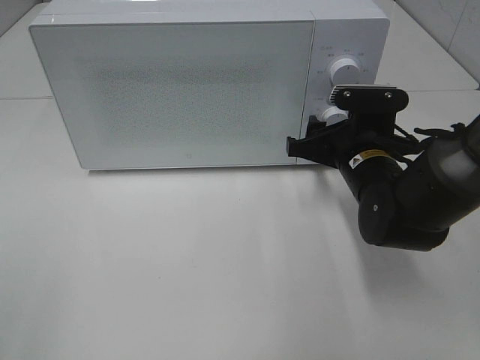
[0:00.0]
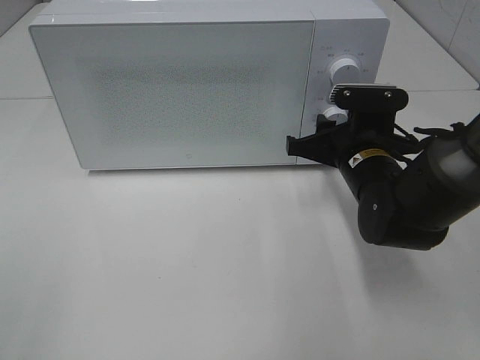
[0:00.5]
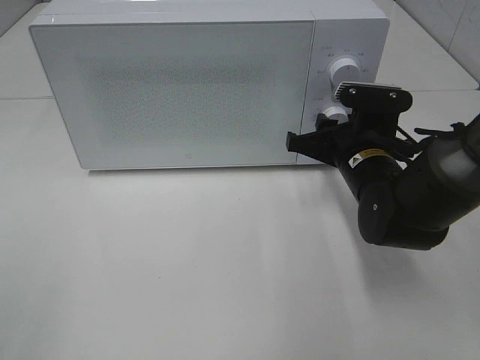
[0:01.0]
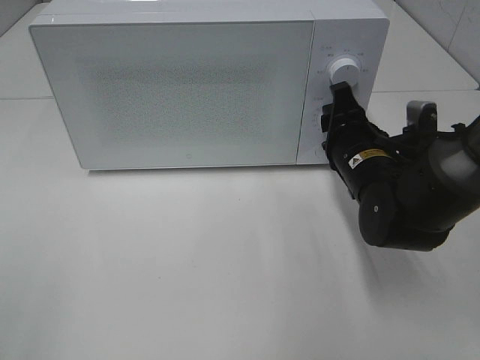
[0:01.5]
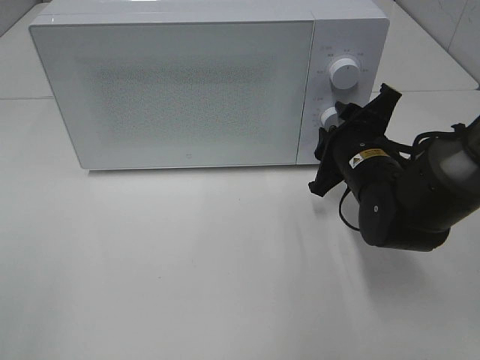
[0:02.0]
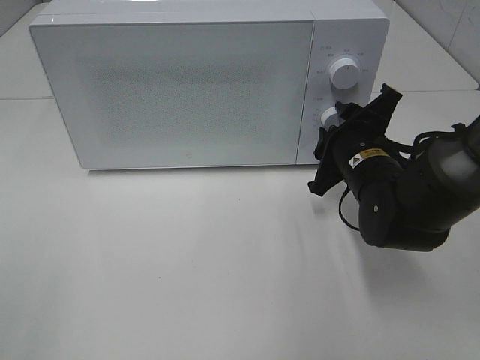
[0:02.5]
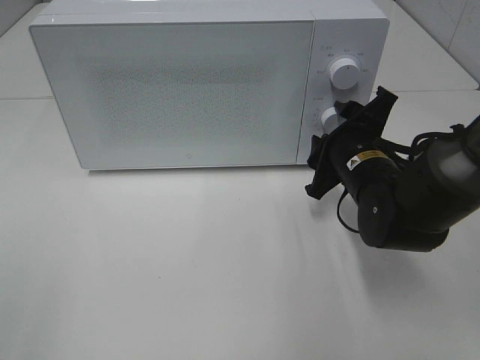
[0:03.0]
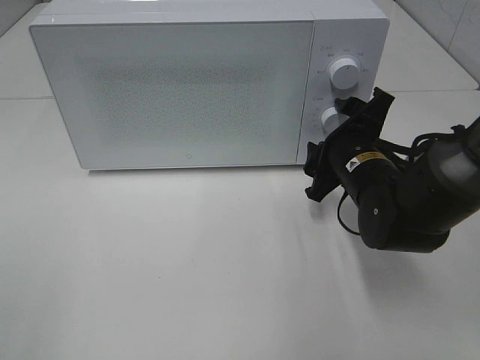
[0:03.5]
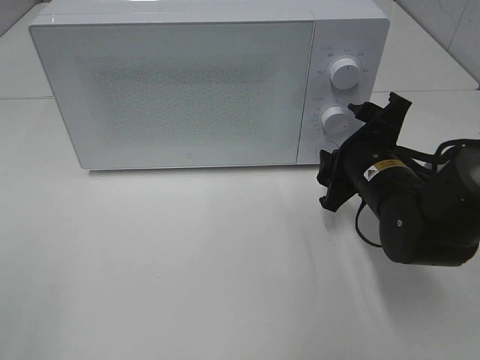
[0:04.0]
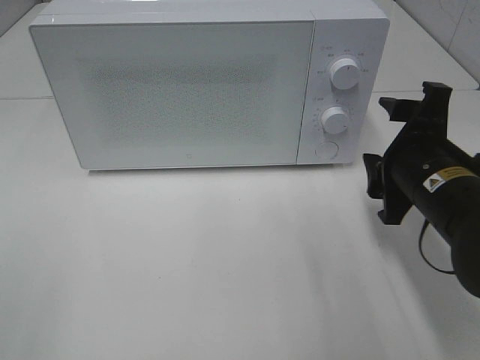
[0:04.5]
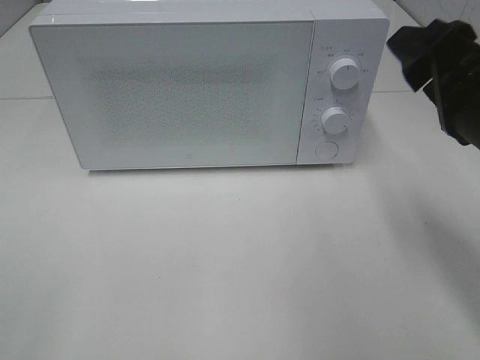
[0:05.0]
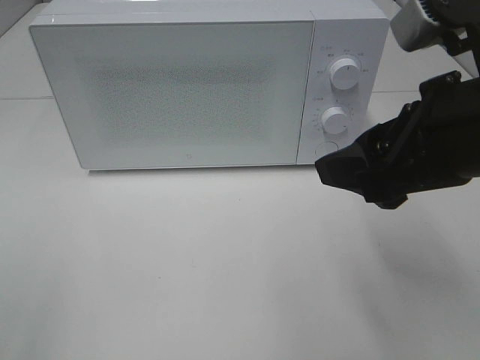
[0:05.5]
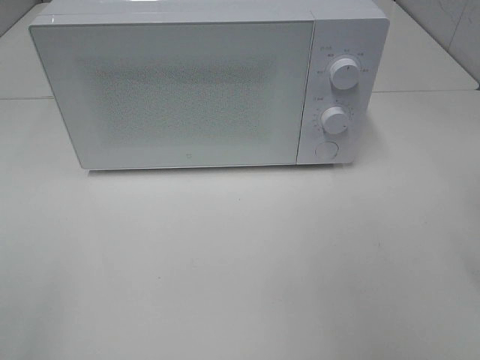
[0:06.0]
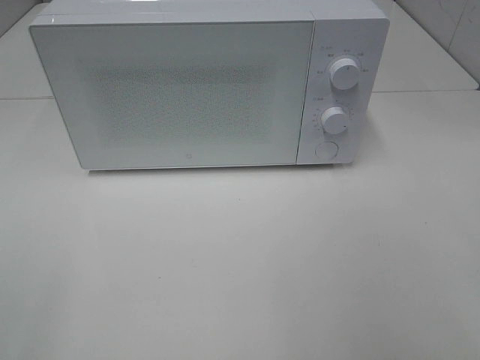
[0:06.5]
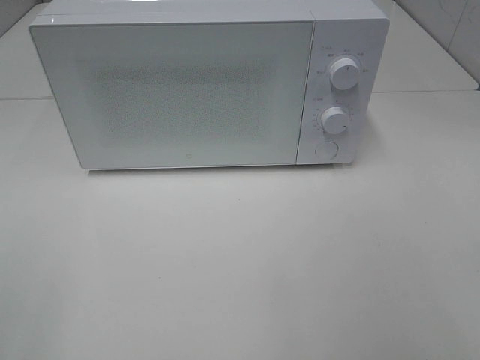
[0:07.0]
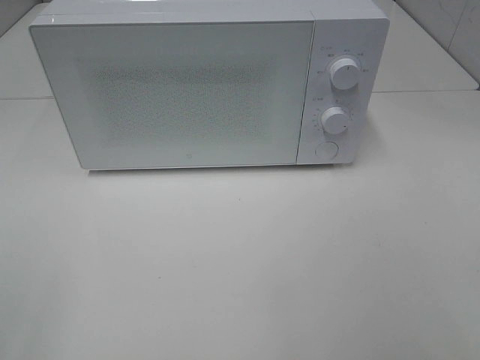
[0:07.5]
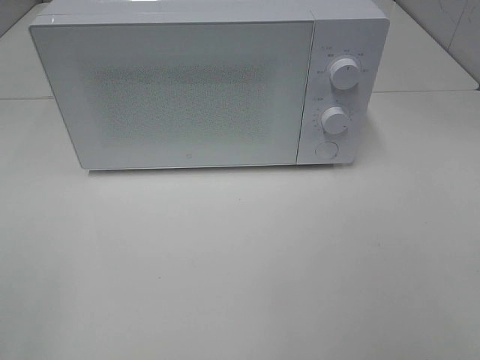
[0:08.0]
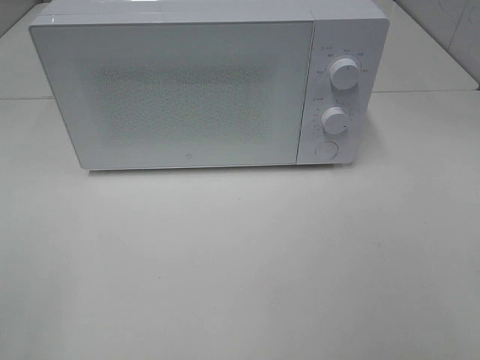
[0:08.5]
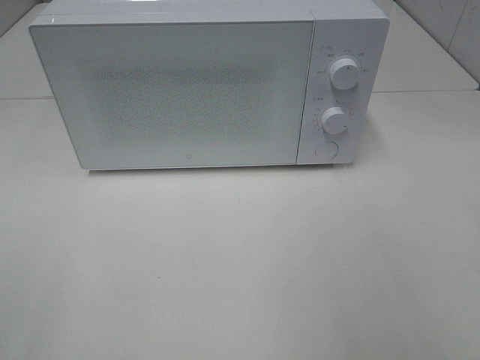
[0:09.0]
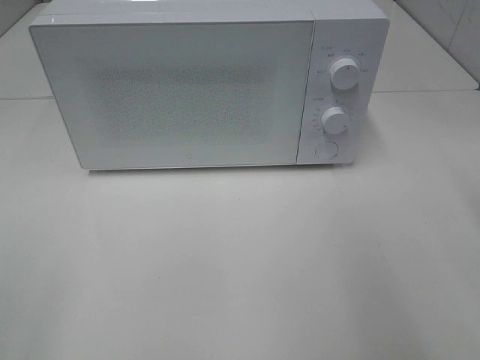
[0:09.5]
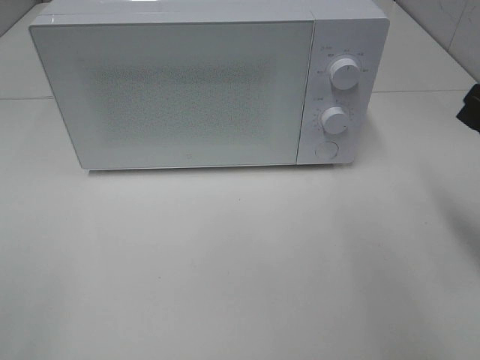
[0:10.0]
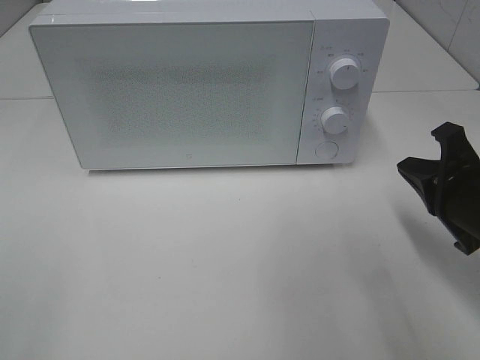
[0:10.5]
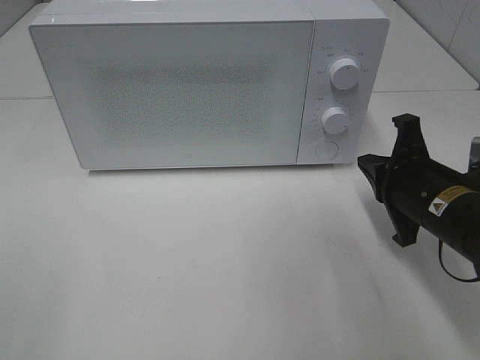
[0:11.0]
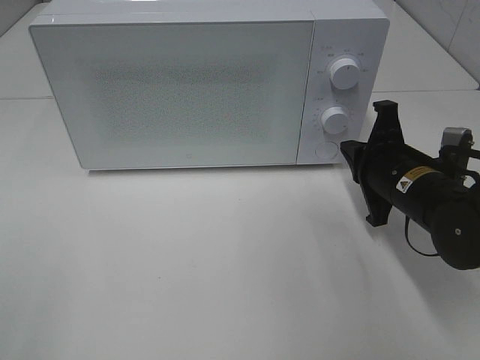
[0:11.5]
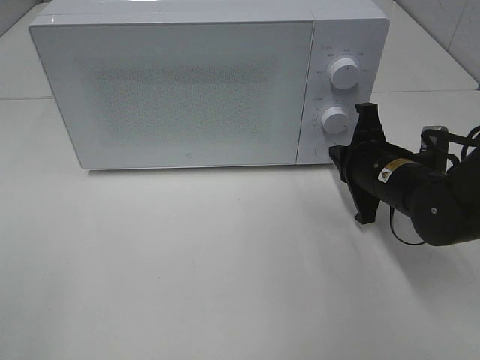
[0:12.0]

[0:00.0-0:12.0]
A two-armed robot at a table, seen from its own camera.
Task of the whole recording: Heat the burger.
Step, 0:00.0 to 0:02.5: Right hand: twist timer button.
0:02.0 to 0:04.0: The grippers stay close to where they were, moving slightly.
0:04.0 to 0:06.0: The right gripper is displaced upward, to the right and backward by about 20 cm.
0:08.0 to 0:10.0: The right gripper shifts approximately 20 cm forward and downward, and closes its fingers.
0:10.0 to 0:12.0: The right gripper travels forward, downward and to the left by some 20 cm.

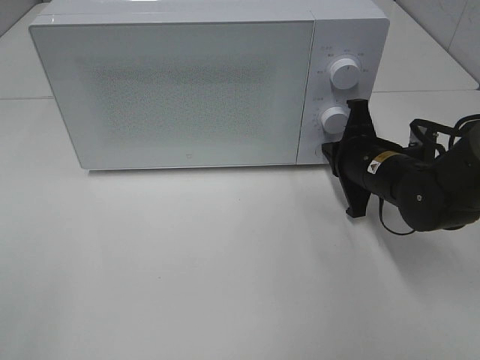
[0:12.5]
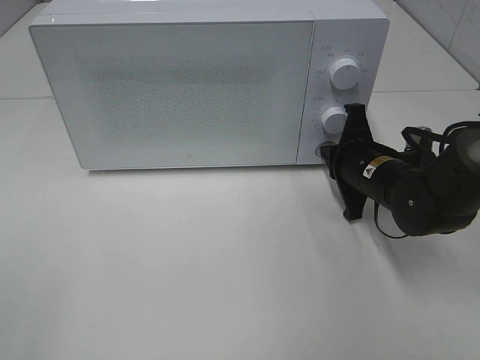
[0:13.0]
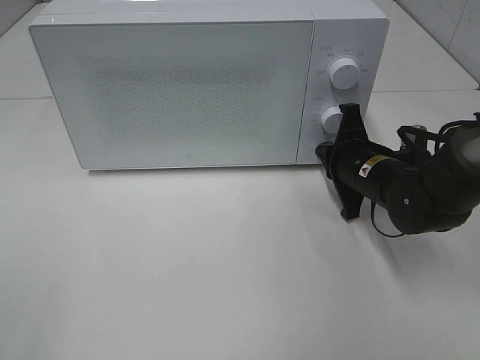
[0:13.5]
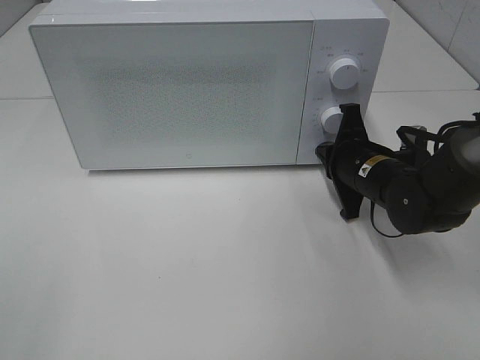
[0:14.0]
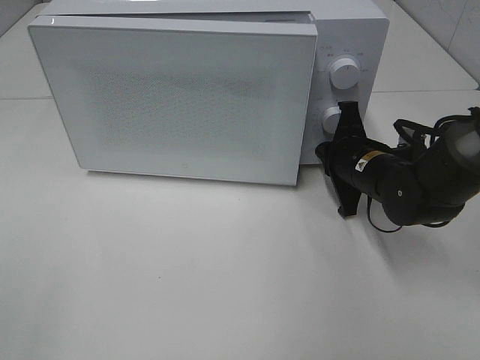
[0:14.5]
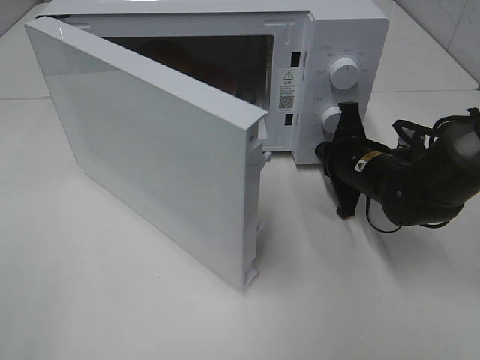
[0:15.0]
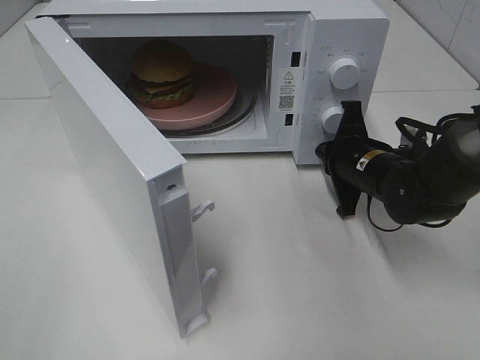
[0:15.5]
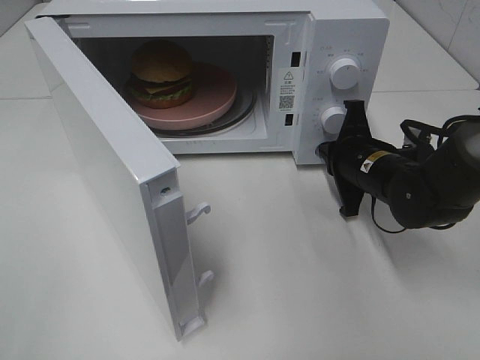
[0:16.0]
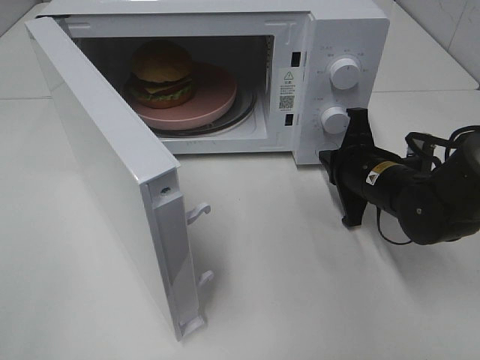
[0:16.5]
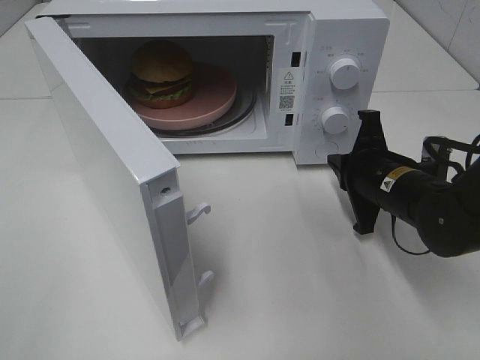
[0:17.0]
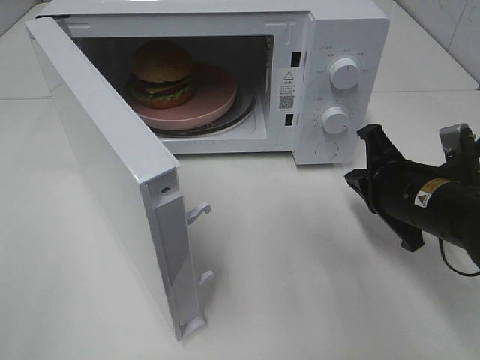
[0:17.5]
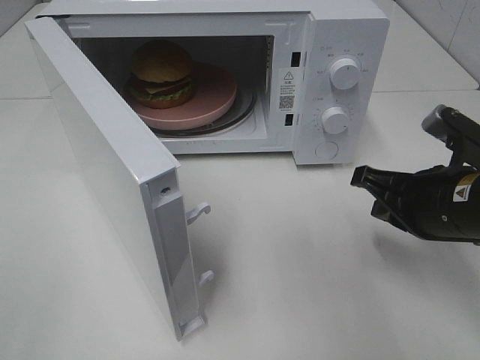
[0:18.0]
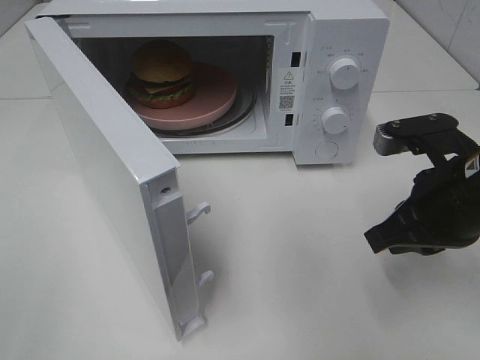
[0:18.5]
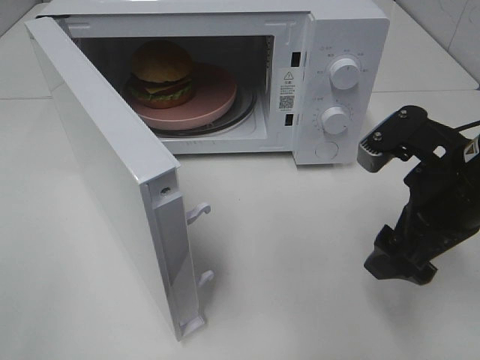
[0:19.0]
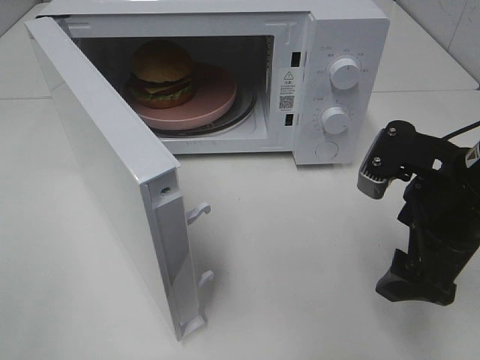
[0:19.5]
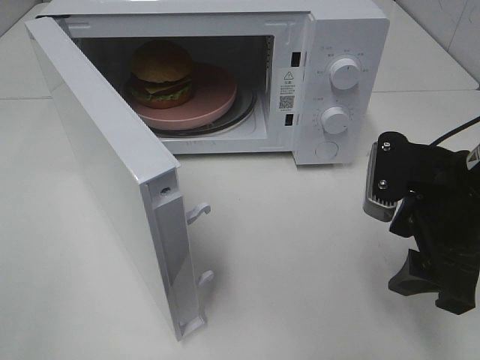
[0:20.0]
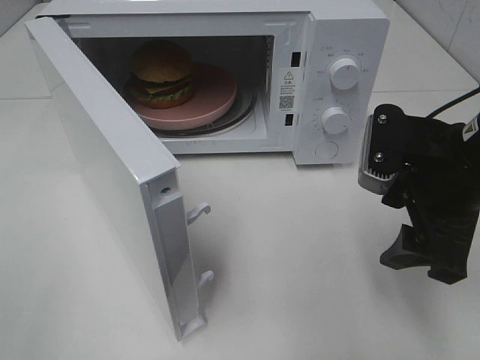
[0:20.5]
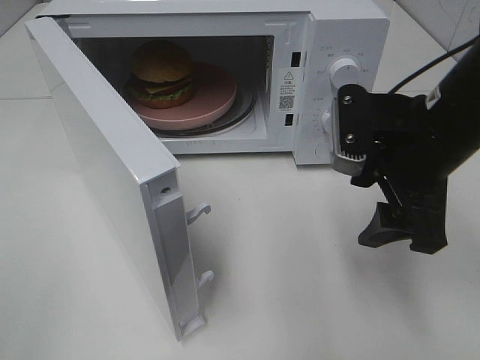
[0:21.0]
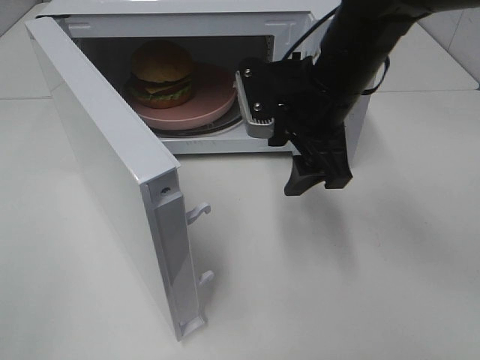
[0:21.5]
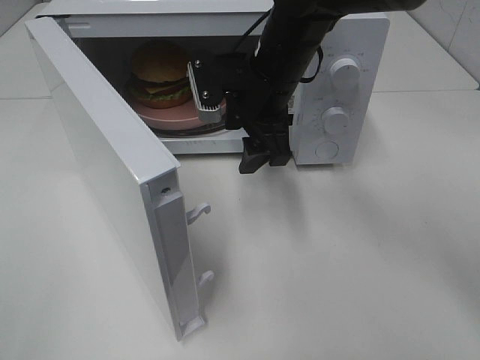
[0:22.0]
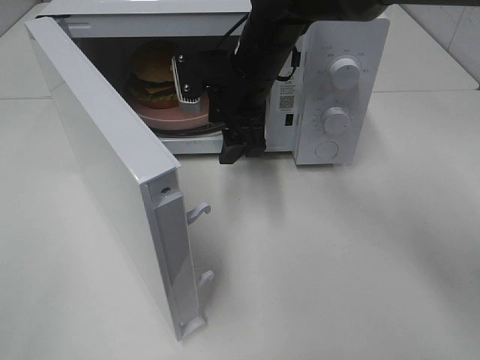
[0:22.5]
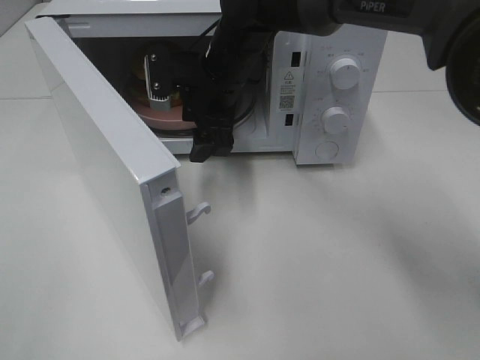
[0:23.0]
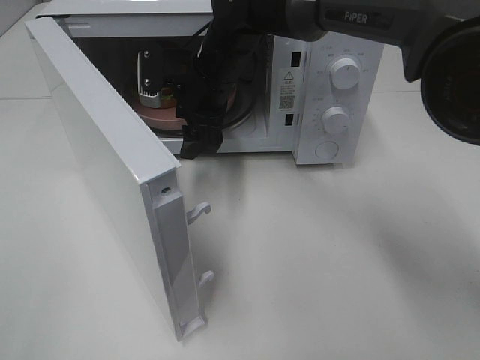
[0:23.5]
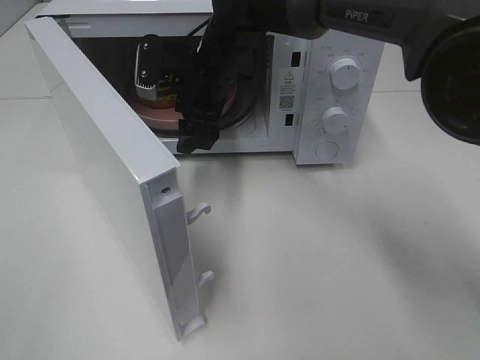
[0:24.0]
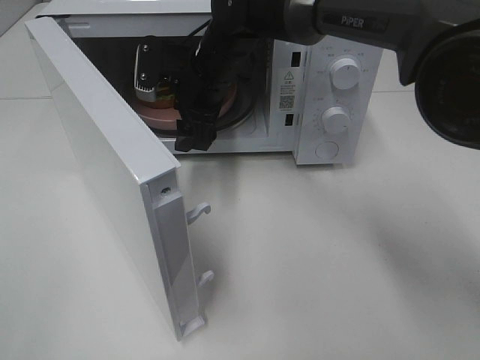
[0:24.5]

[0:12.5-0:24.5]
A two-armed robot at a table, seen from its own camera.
Task of the whole recording: Heat the burger.
Step, 0:12.5 to 0:16.0: Right hand: press the switch.
0:12.5 to 0:14.5: The grippers make only small movements.
0:16.5 to 0:18.5: The right gripper moves backward and upward, some 15 cm.
0:18.5 to 0:20.5: The right gripper opens.
0:20.5 to 0:22.5: The right gripper is displaced to the left and forward by roughly 25 cm.
0:22.5 to 0:24.5: The right gripper ends up about 5 cm from where it was.

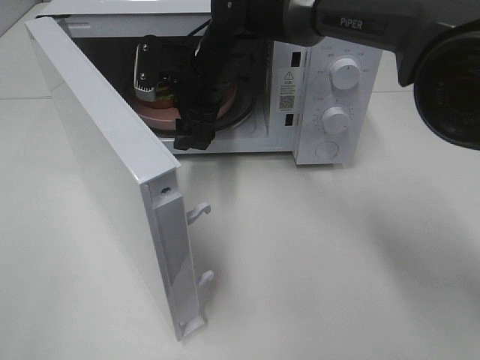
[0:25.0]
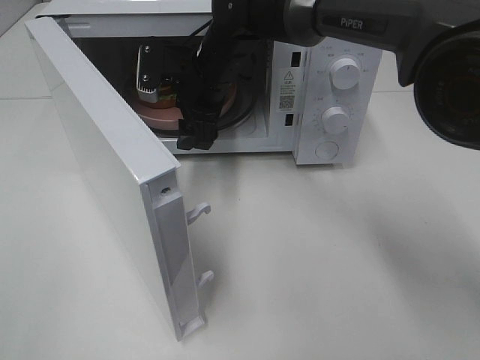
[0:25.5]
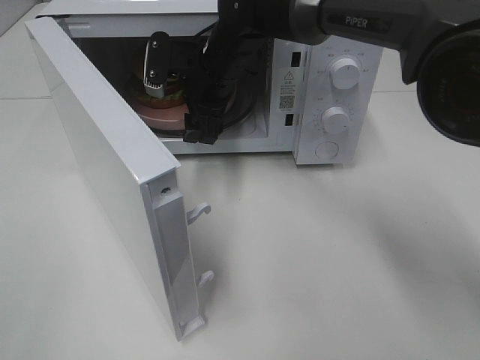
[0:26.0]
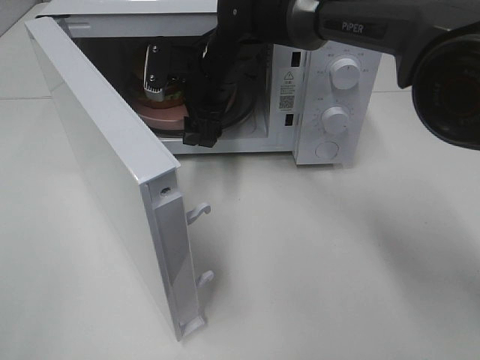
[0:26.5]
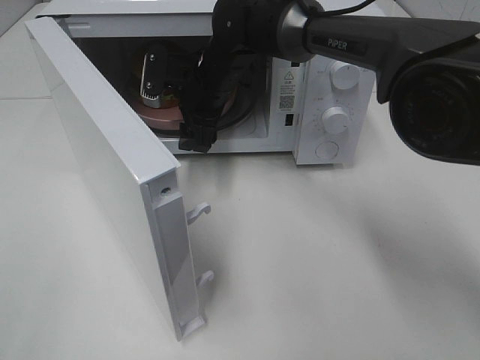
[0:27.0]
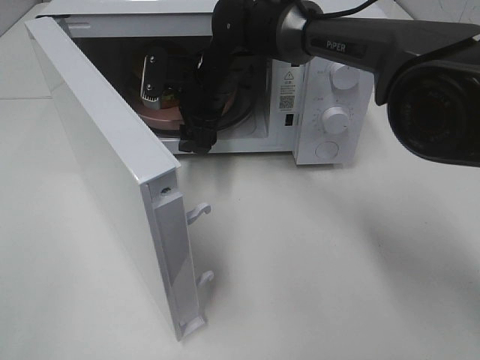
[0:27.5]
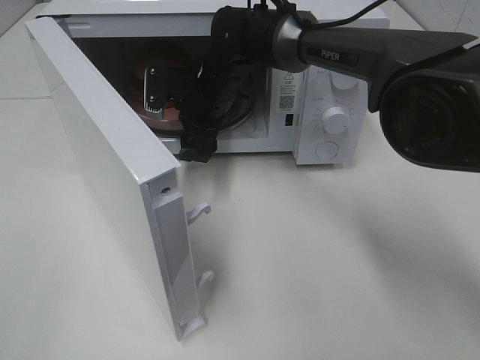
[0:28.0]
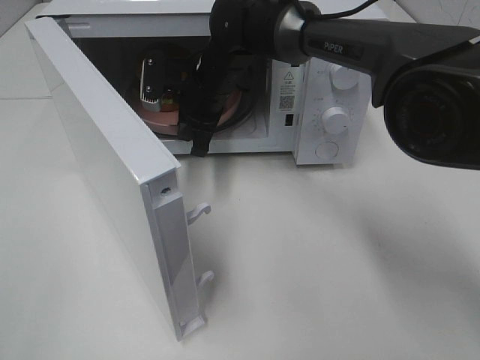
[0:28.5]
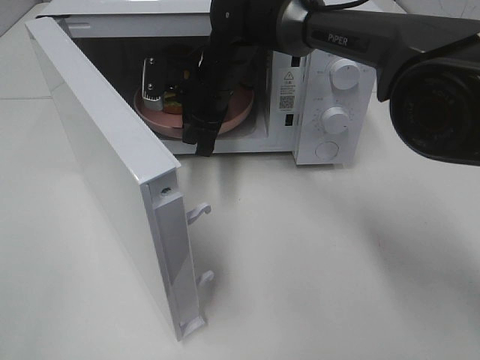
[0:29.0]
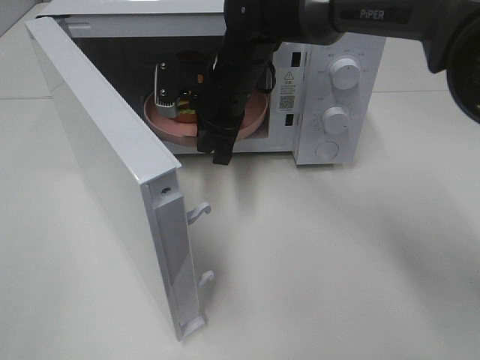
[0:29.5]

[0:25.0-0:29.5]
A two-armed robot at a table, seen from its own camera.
Task of the whole recording: Heat the burger.
Step, 0:25.0 to 0:28.5: Right hand: grab the plate with the hamburger.
0:25.0 to 0:27.0: The grippers move only a little.
0:27.0 to 0:29.5: The right gripper closes.
